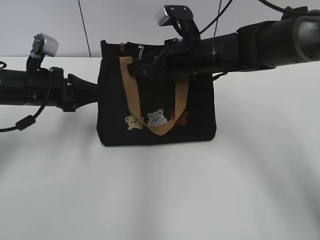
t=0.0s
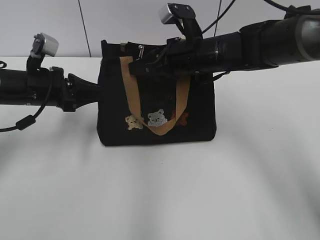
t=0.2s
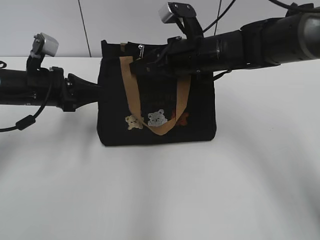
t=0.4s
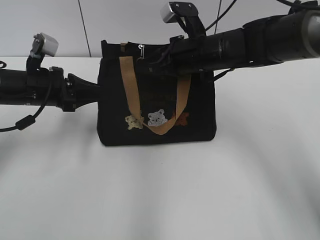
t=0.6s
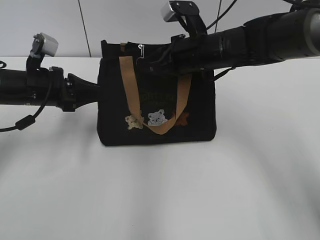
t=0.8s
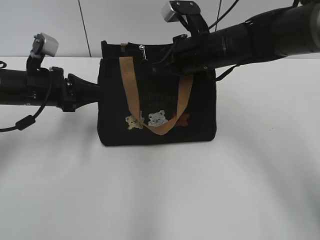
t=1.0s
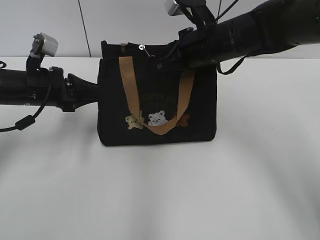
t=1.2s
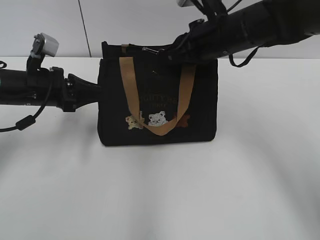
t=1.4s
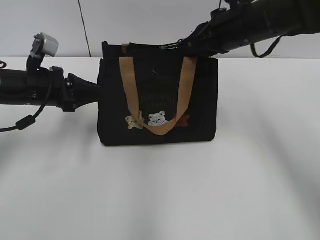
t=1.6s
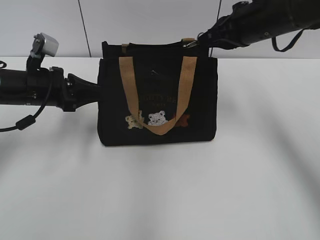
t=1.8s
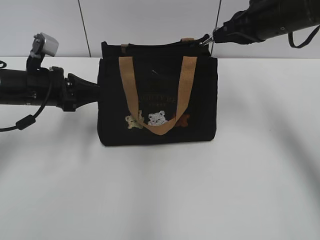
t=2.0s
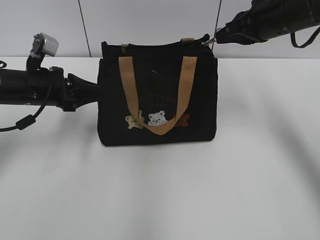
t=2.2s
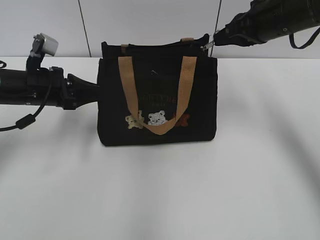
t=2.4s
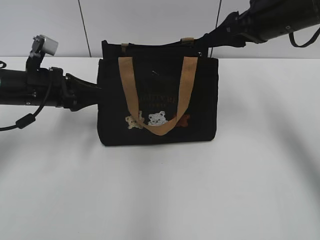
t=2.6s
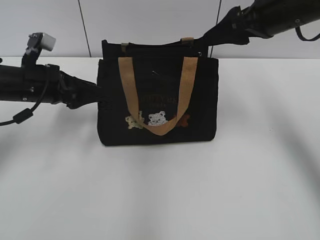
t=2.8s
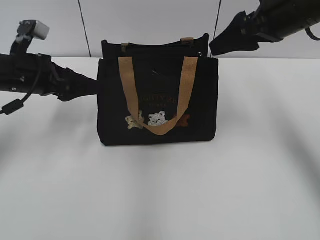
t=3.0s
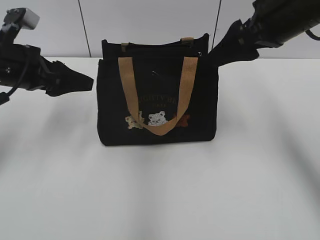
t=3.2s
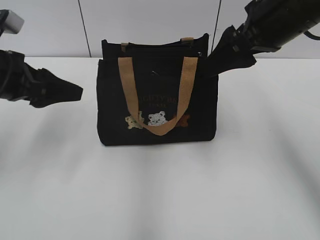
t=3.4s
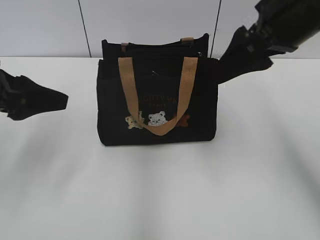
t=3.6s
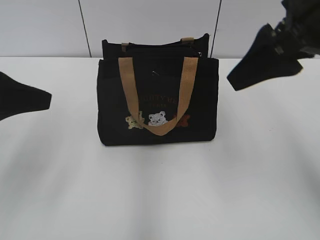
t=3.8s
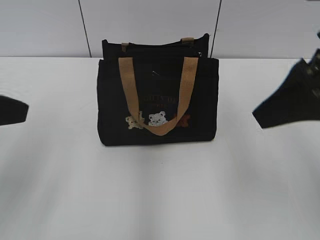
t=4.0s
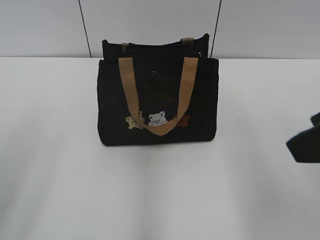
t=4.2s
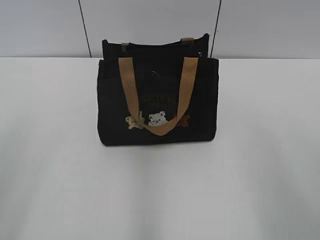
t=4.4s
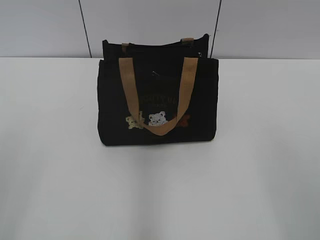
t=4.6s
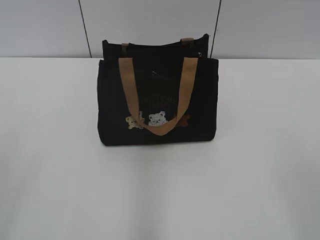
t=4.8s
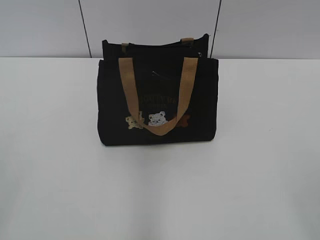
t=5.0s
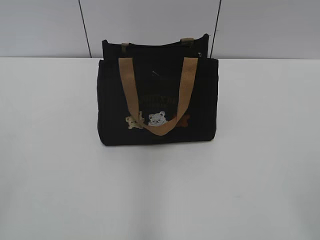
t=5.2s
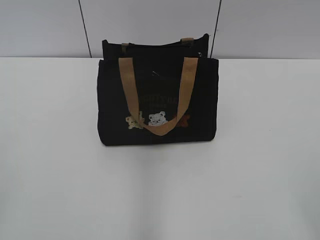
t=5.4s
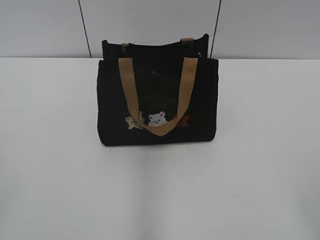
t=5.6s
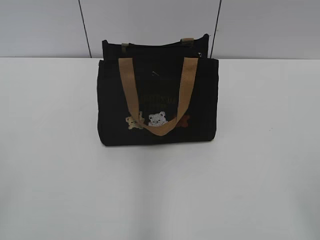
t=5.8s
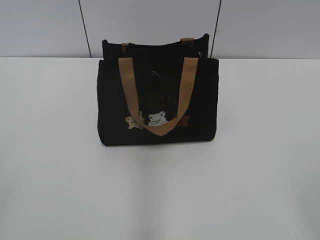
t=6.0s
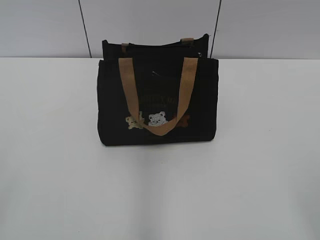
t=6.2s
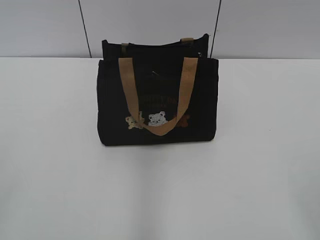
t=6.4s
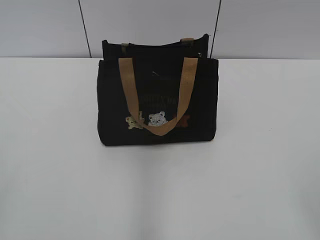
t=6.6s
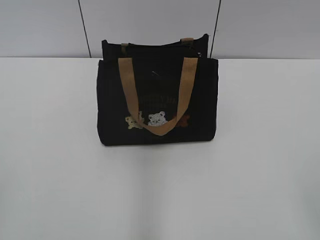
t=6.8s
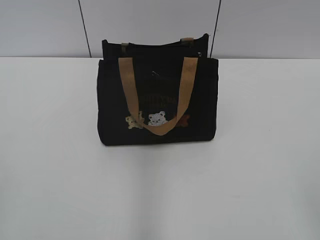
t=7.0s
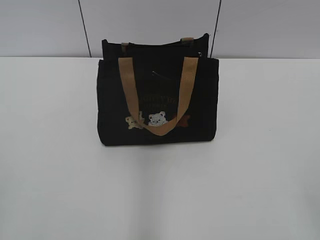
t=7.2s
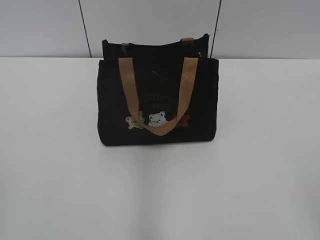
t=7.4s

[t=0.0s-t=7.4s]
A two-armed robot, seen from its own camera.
Step, t=0.0s to t=2.6s: Pull open the zipper with your right hand.
Step, t=2.8s to t=3.0s: Hold the bag with your left hand.
t=0.0s to t=1.4s: The right gripper changes place by approximately 5 cm, and closes.
t=1.4s to t=3.0s: The left gripper opens up. The right gripper heads to the right and upward, covering roughly 10 cm, and opens its fingers.
t=3.0s to t=4.4s: The right gripper heads backward, covering about 25 cm. The left gripper goes approximately 30 cm backward and upward.
